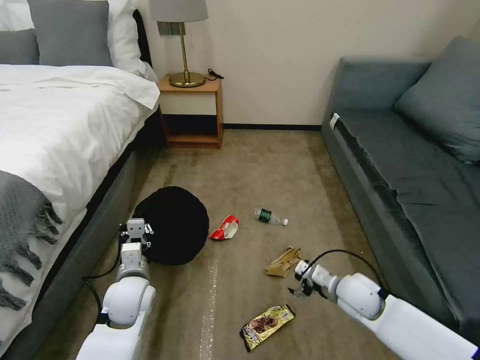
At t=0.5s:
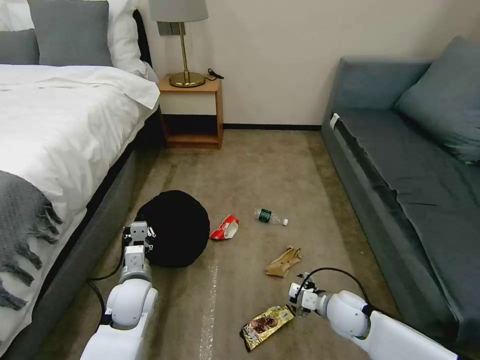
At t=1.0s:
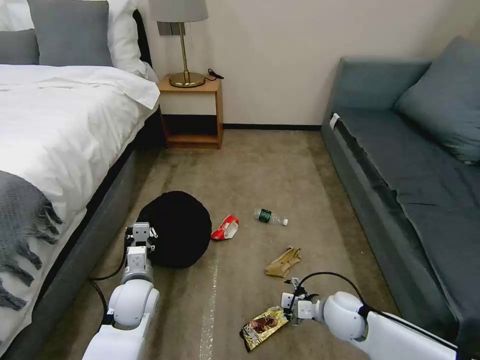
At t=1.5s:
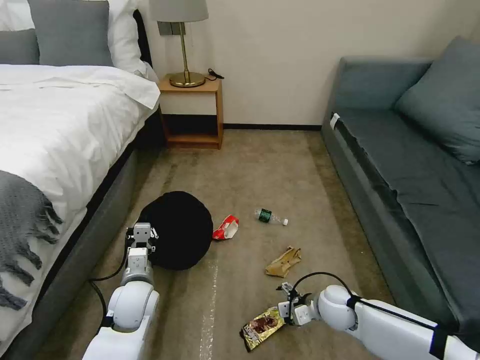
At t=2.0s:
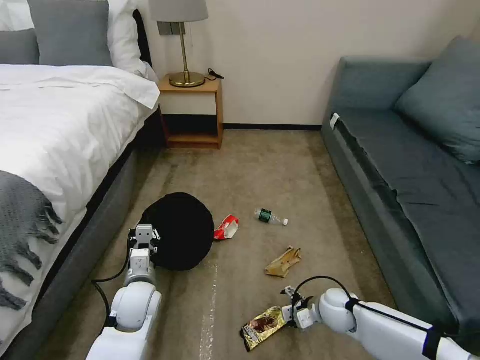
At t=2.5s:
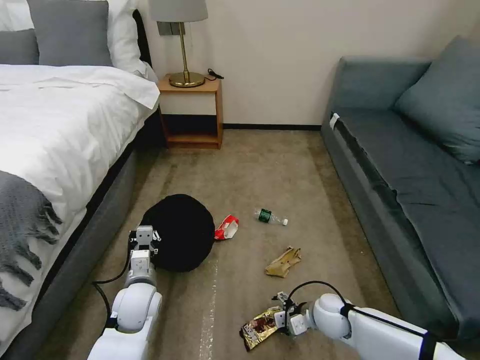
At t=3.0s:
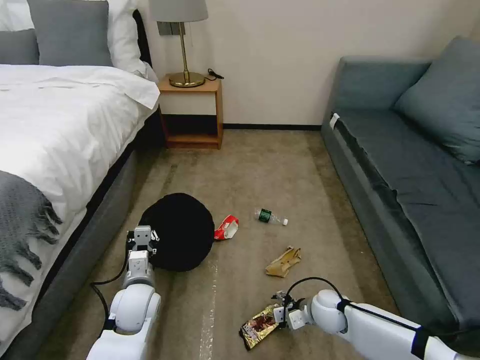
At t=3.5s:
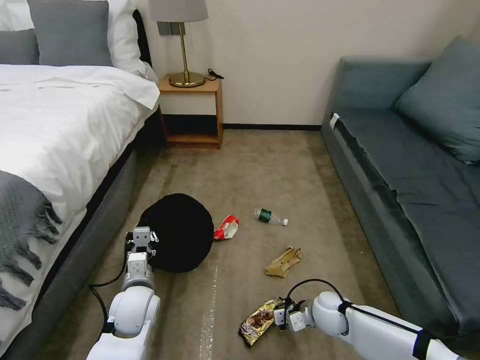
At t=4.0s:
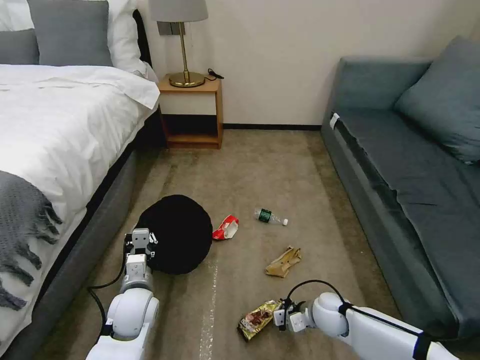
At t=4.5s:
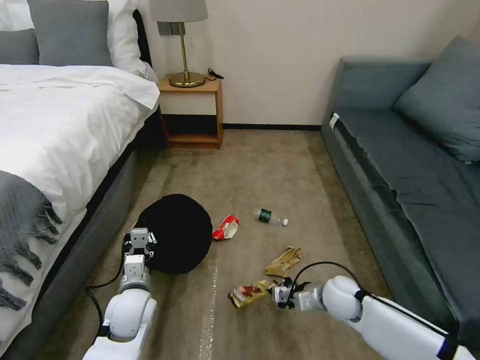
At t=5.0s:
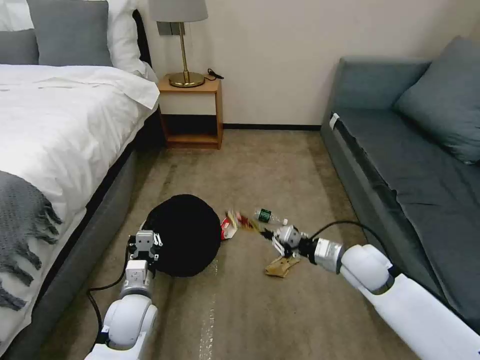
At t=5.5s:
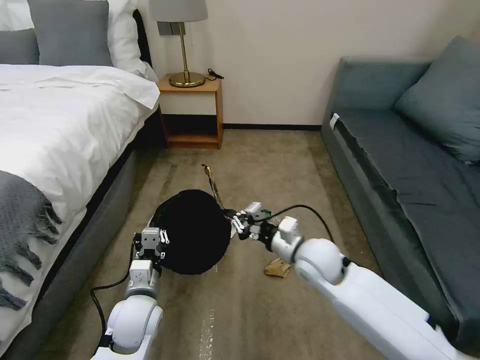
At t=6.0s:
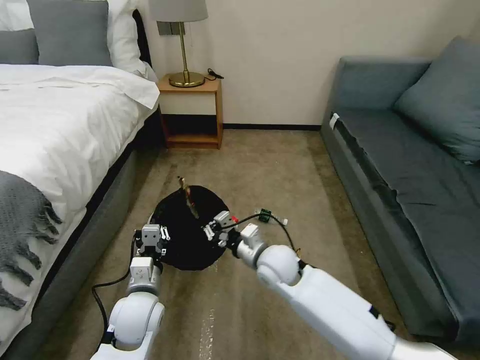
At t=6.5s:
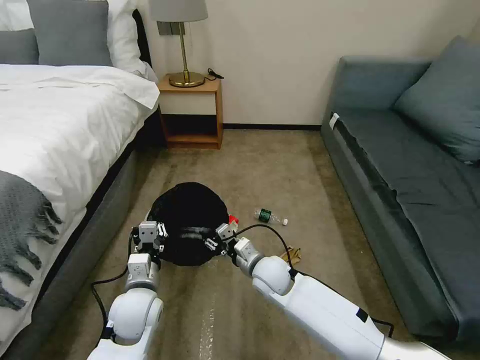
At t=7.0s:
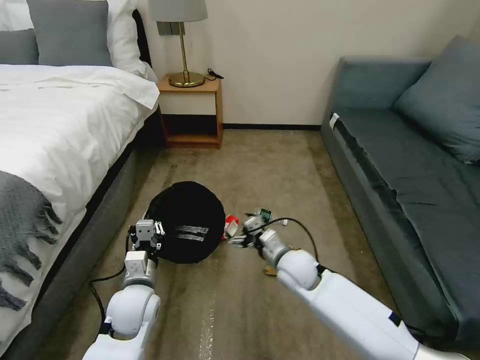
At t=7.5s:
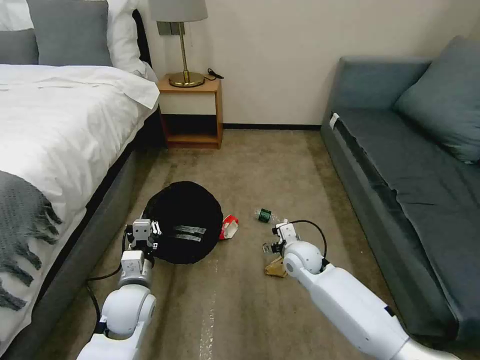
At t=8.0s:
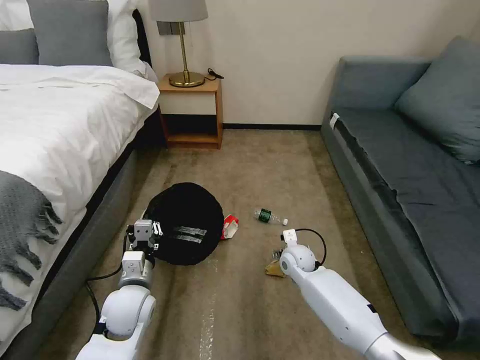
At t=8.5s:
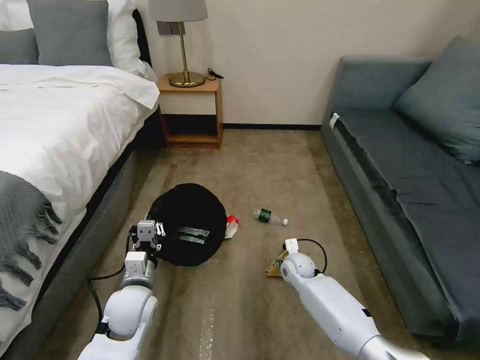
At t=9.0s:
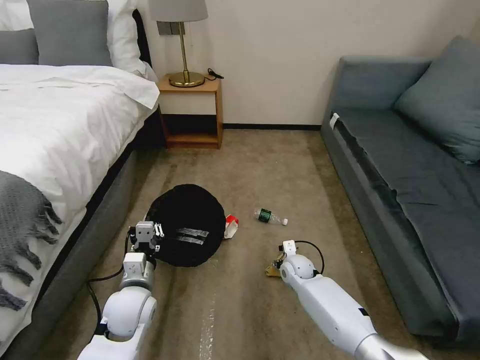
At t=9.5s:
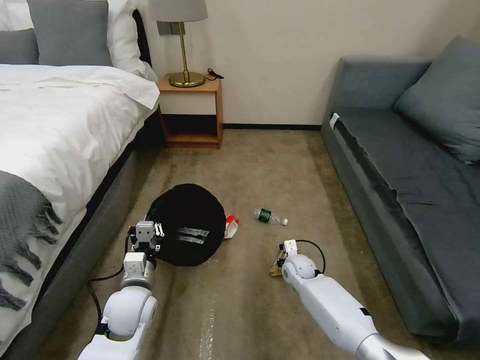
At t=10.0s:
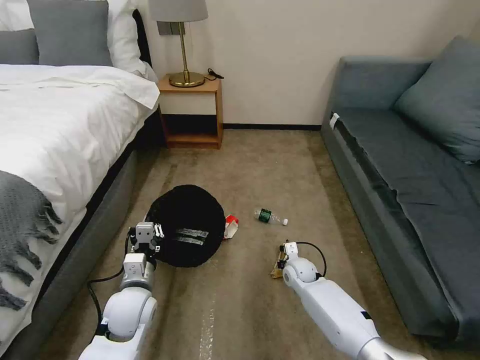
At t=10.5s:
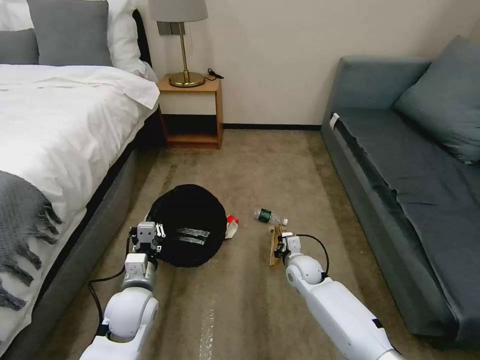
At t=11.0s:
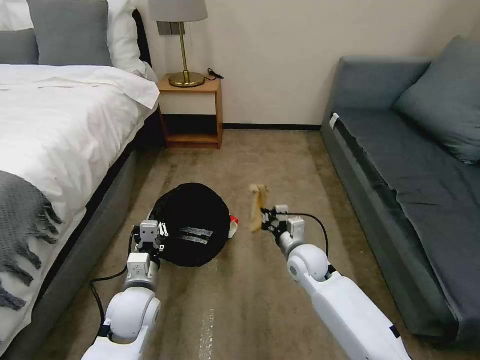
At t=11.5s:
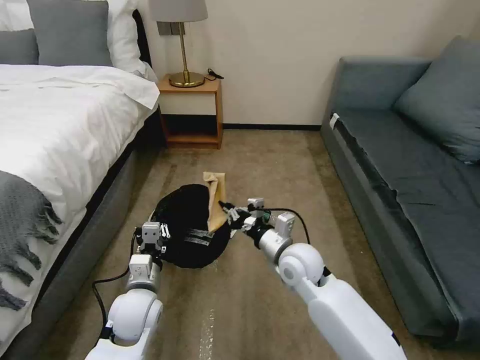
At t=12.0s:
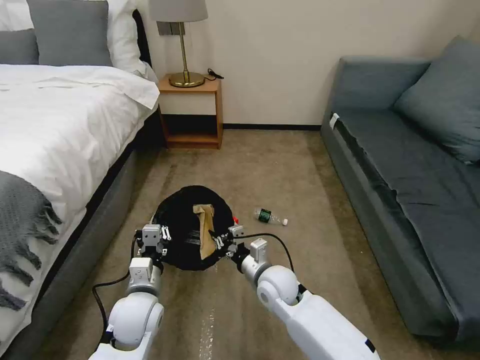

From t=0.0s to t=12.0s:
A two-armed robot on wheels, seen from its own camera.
Task of the whole recording: Pick up the trash bin, then pick up the garbage on the floor and place it into the trash bin.
From t=0.0s to t=2.0s: The right gripper shifts some 10 cm downward.
From t=2.0s to t=4.0s: The right gripper closes.
From t=4.0s to t=6.0s: The right gripper travels upward and to the left by some 20 cm.
From t=6.0s to t=8.0s: The right gripper moves downward, to the right and forward, approximately 15 cm, and opens its fingers.
From t=8.0s to t=10.0s: The right gripper is displaced downward by about 5 cm, and closes.
From t=10.0s to t=12.0s: The right gripper shifts approximately 20 cm upward, to the left and backward.

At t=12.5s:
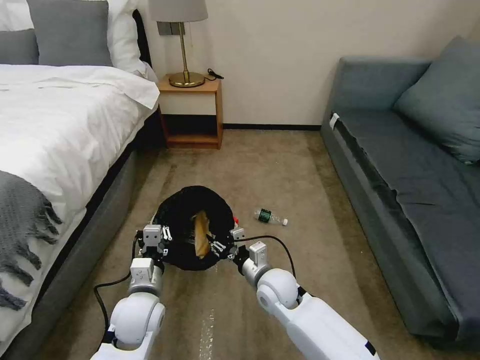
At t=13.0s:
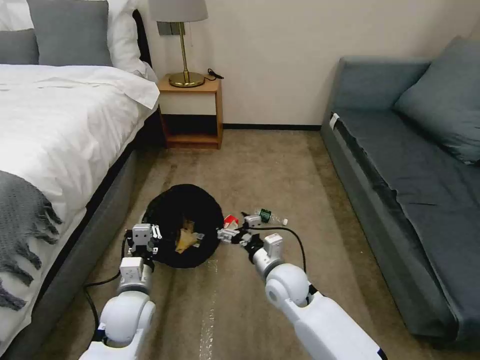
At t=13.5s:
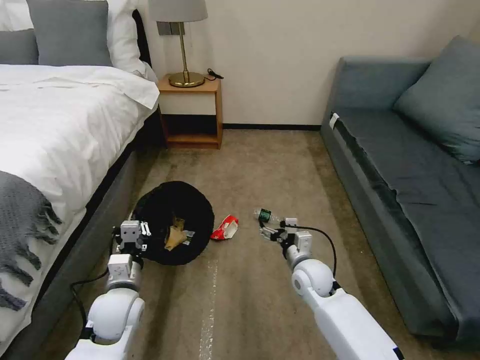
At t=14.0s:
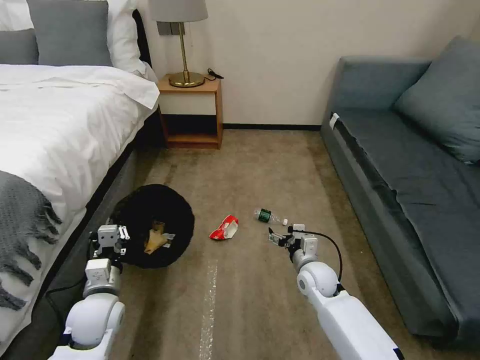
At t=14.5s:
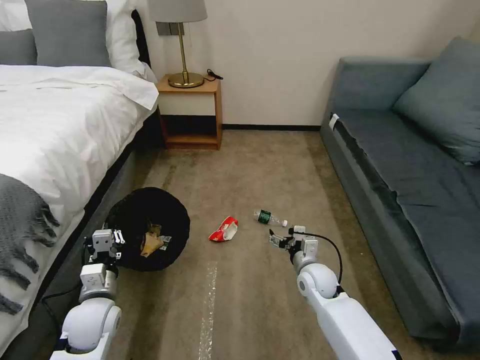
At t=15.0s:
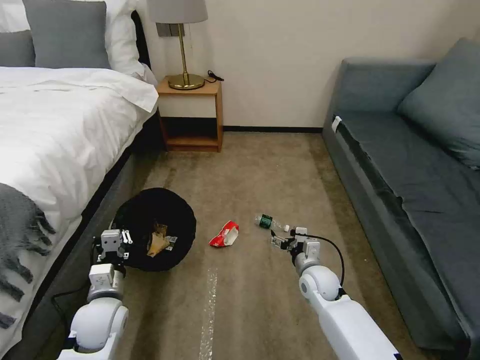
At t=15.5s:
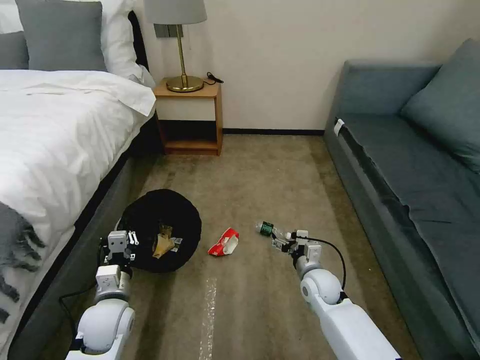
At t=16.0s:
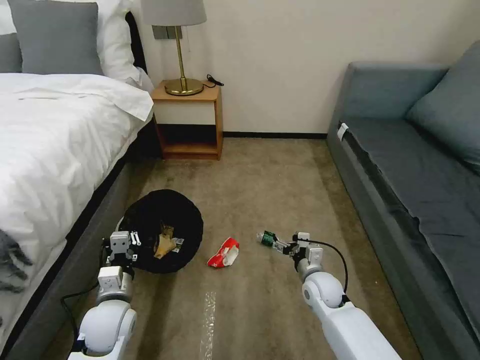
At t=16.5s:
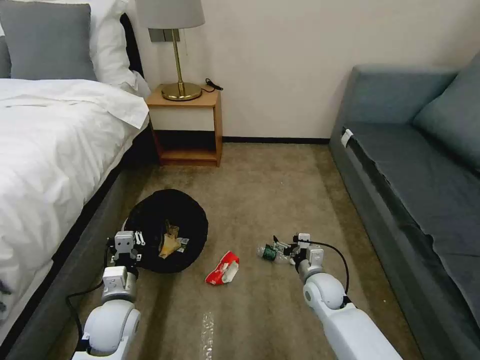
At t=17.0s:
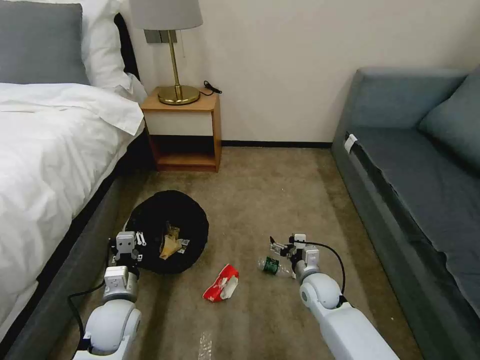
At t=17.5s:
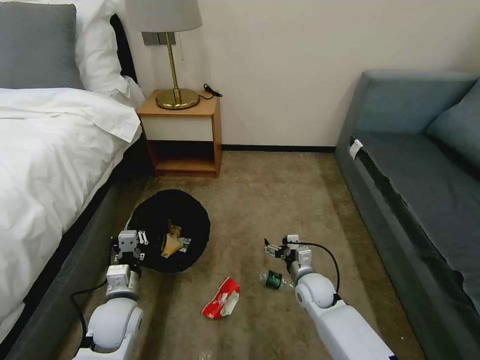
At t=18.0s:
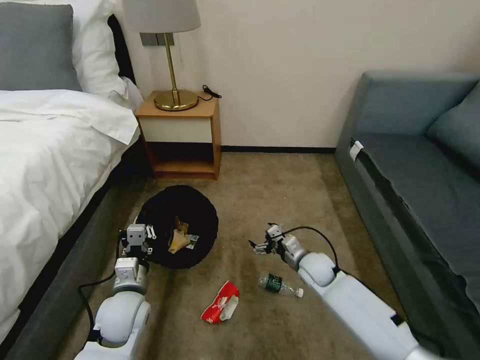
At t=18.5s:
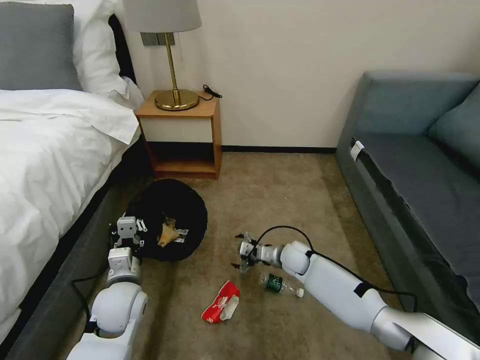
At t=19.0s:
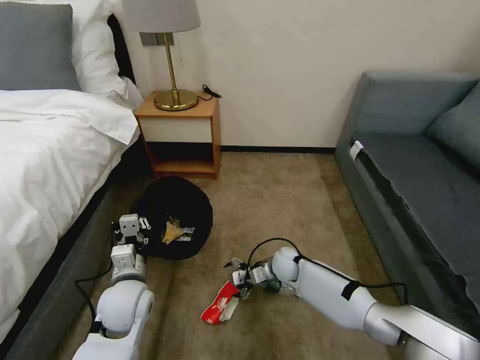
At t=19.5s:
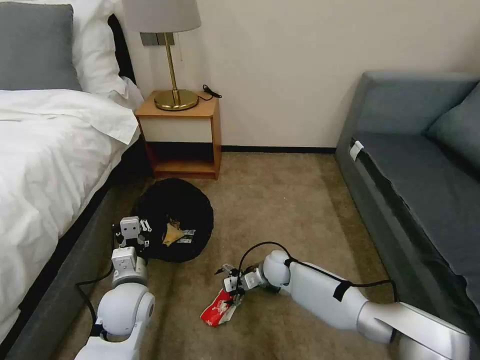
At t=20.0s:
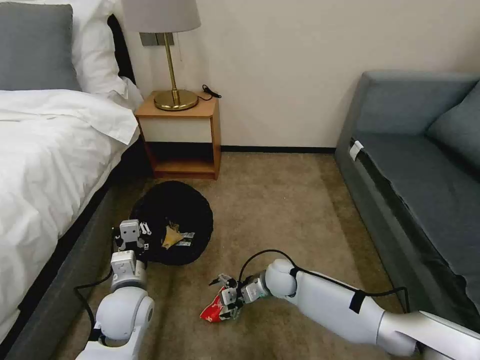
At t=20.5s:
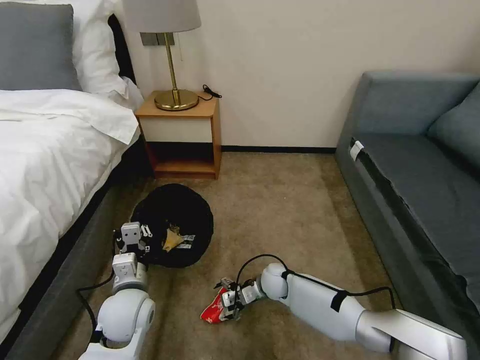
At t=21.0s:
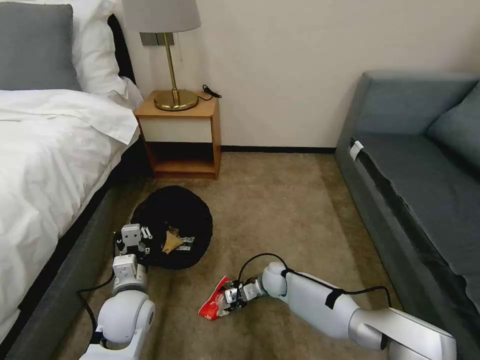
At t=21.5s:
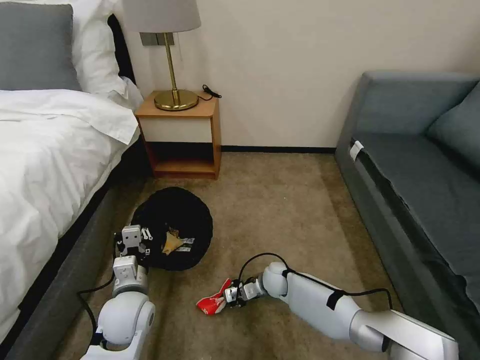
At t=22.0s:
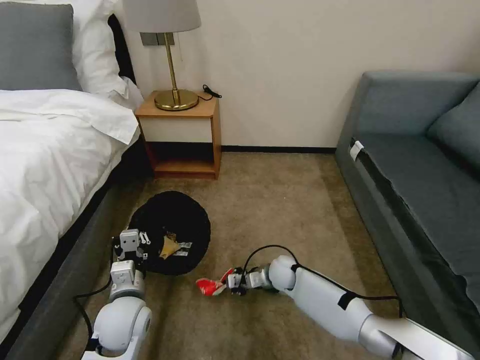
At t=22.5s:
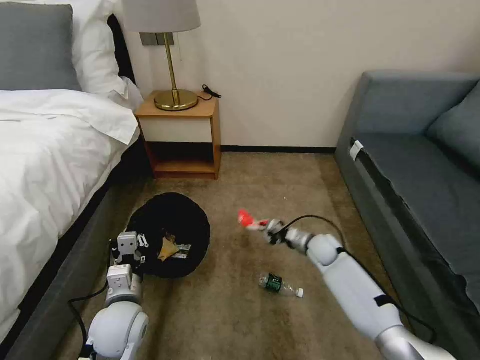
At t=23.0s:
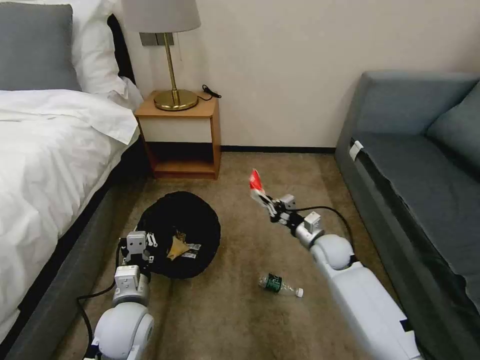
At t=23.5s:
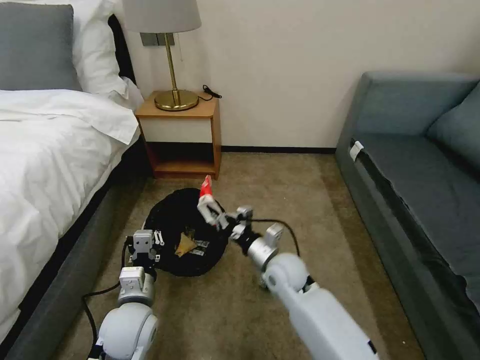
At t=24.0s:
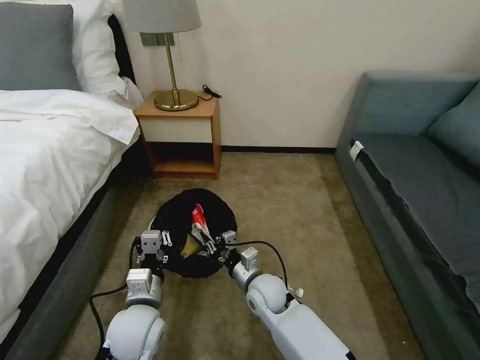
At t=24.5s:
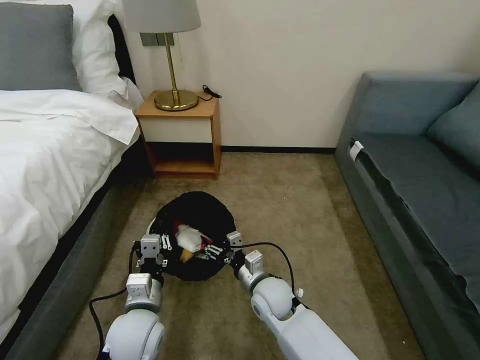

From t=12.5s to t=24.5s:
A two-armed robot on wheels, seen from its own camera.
Task of the whole recording: Pick up the trash bin, then pick up the garbage on the floor and place it into the trash bin.
From t=12.5s to t=14.5s: The right gripper heads to the right, covering about 10 cm, and opens. The left gripper heads to the left, covering about 10 cm.
From t=16.5s to t=18.5s: The right gripper moves forward and to the left, approximately 10 cm.
From t=18.5s to t=20.5s: The right gripper heads to the left and backward, covering roughly 10 cm.
From t=20.5s to t=22.5s: The right gripper moves to the right, forward and upward, approximately 15 cm, and closes up.
From t=22.5s to t=24.5s: The right gripper is displaced to the left and backward by some 25 cm, and opens its fingers.

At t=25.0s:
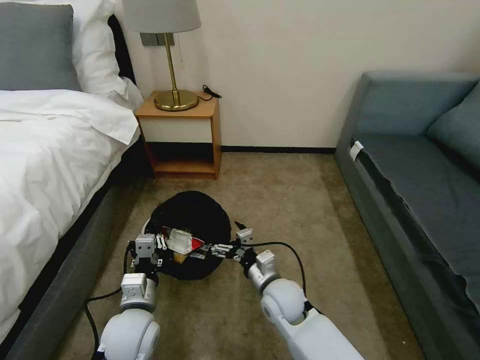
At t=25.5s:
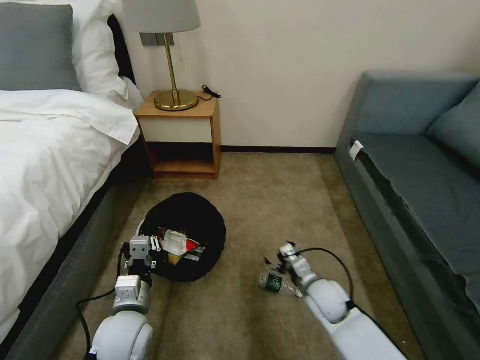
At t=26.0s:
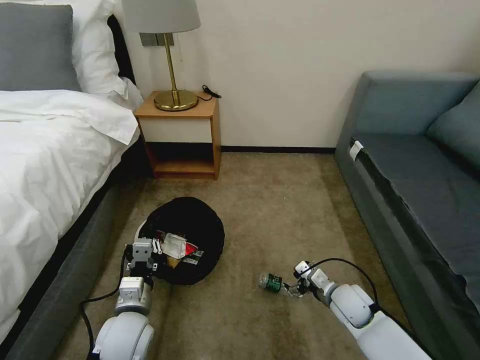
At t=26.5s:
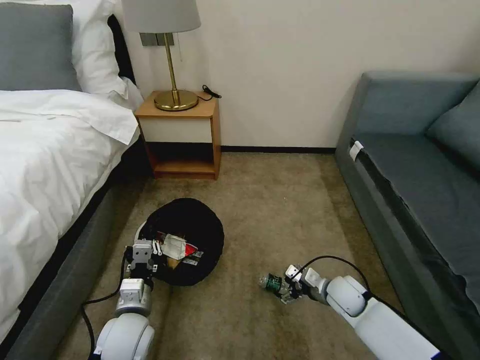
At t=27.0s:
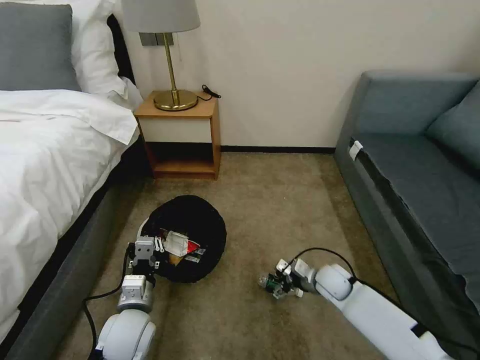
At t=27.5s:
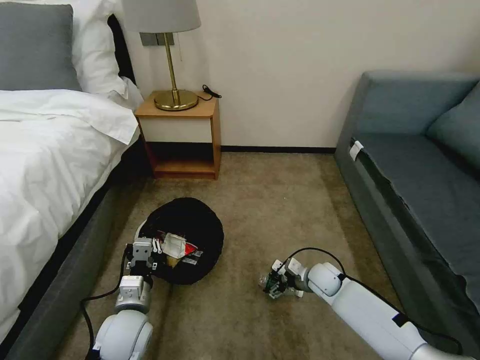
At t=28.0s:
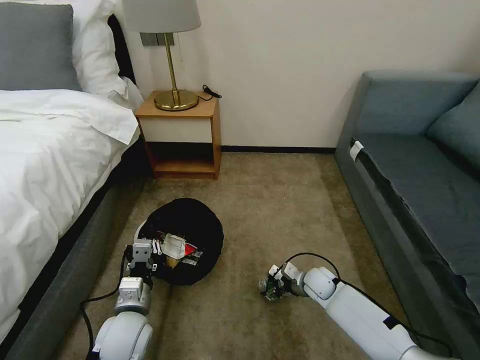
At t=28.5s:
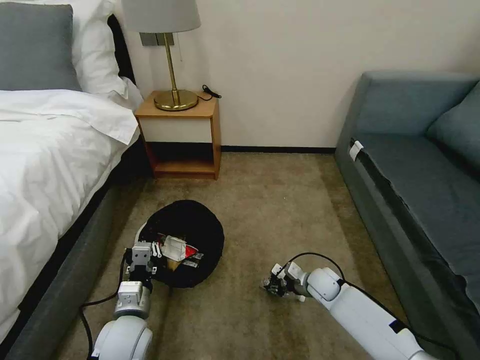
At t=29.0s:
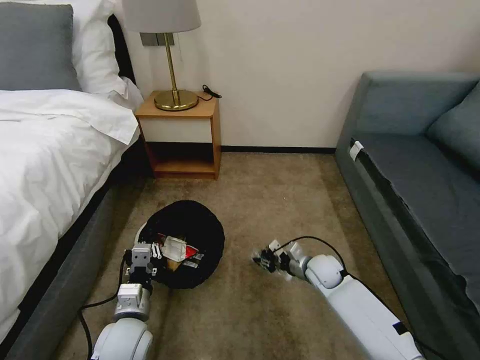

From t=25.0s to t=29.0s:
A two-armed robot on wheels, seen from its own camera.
Task of the whole recording: Pick up the trash bin, then pick up the garbage on the floor and place it into the trash bin.
From t=25.0s to t=27.0s: The right gripper shifts roughly 20 cm to the right.
From t=27.0s to t=29.0s: The right gripper travels forward by some 5 cm, and closes up.
